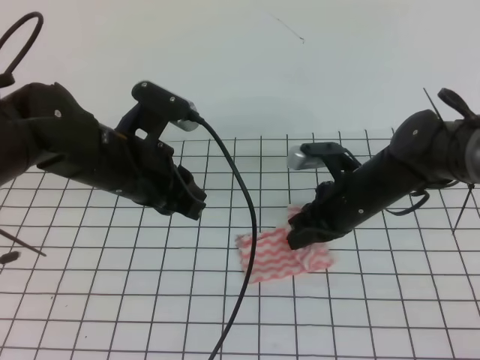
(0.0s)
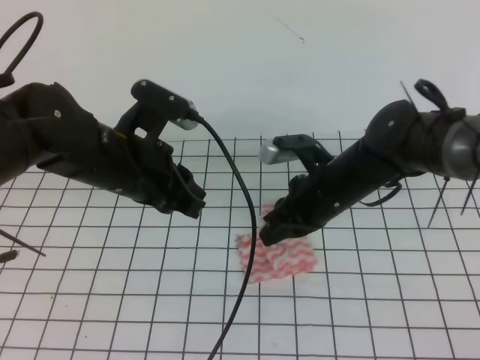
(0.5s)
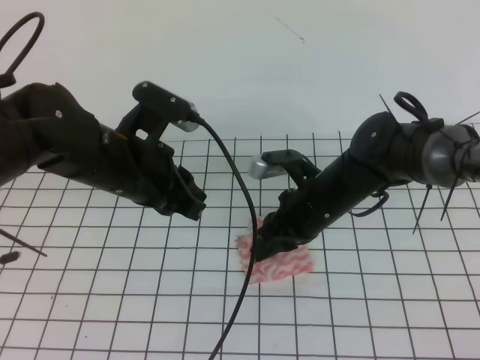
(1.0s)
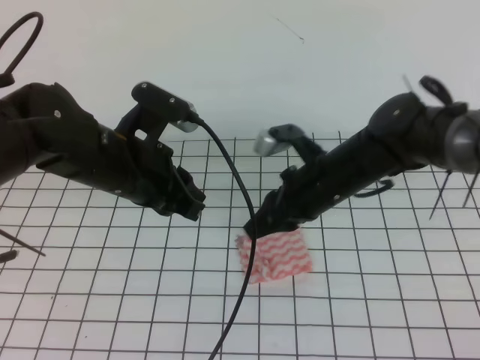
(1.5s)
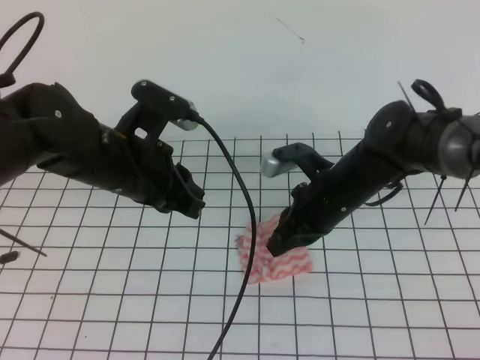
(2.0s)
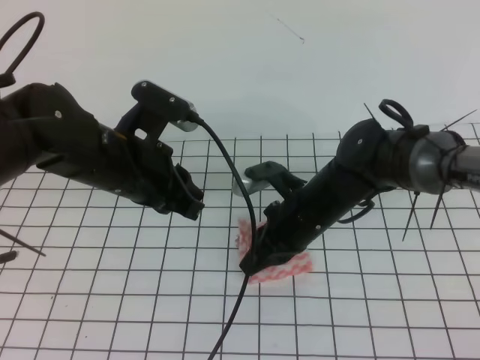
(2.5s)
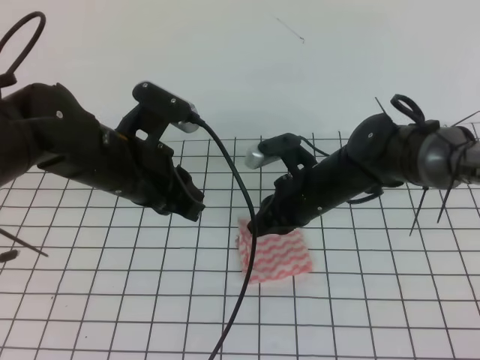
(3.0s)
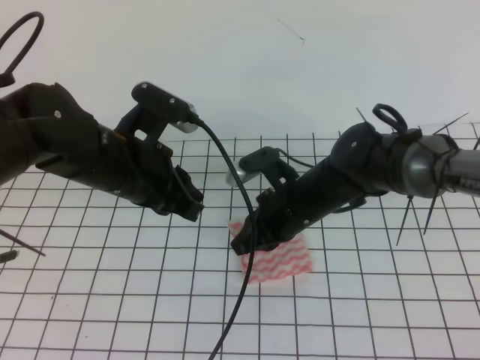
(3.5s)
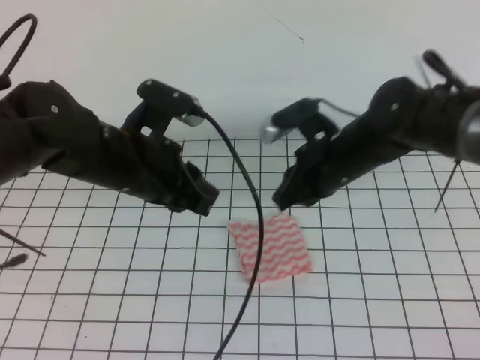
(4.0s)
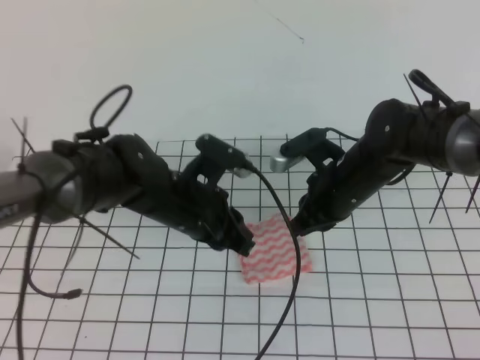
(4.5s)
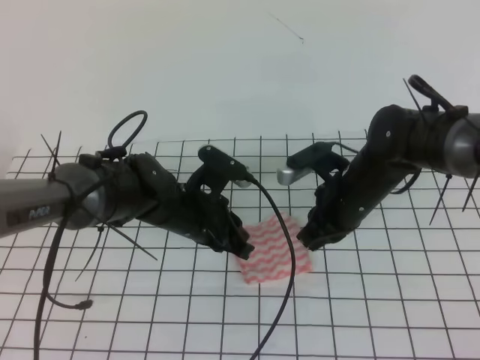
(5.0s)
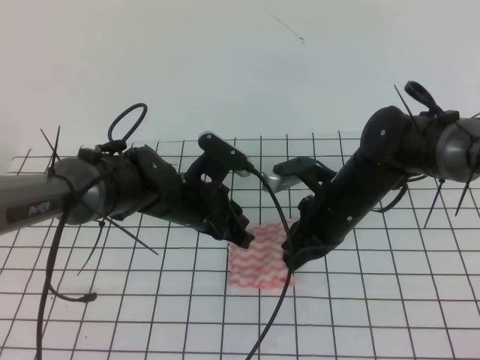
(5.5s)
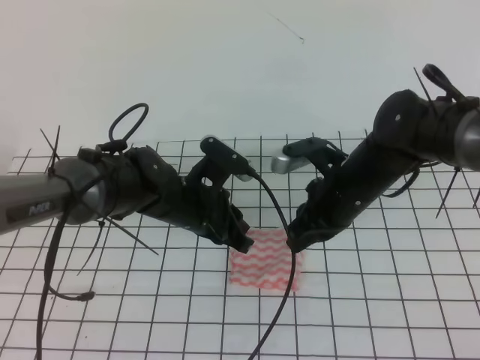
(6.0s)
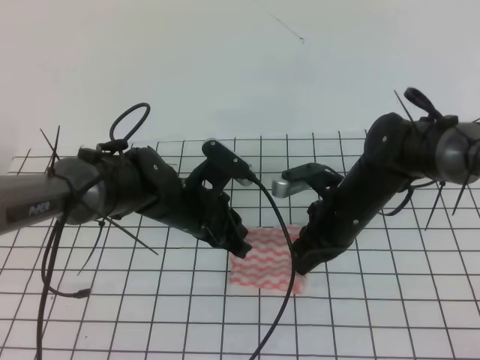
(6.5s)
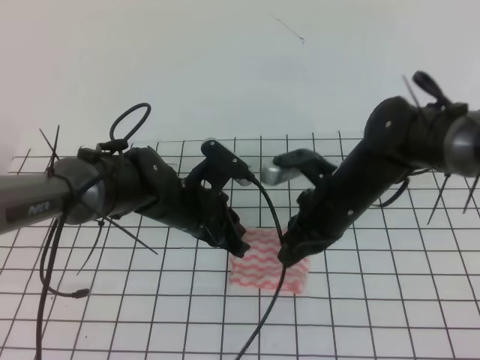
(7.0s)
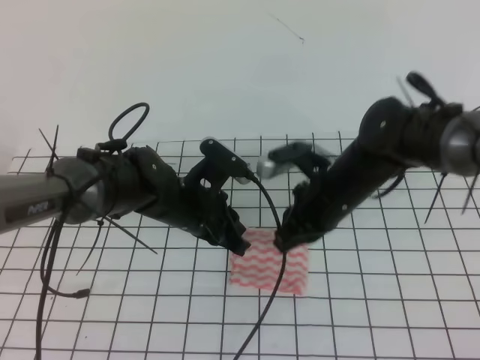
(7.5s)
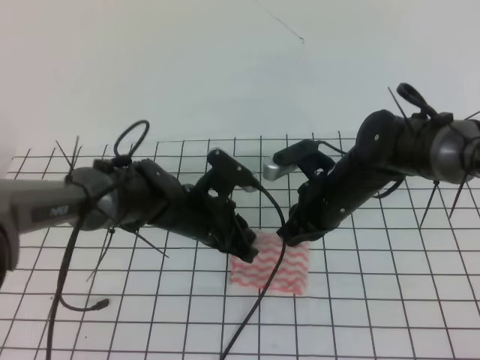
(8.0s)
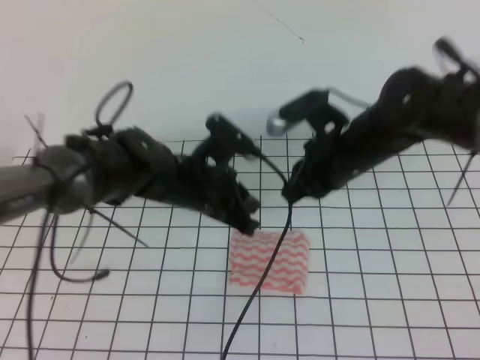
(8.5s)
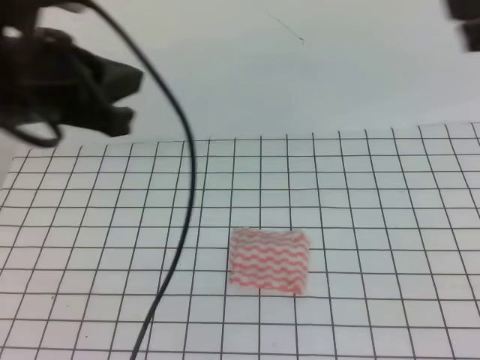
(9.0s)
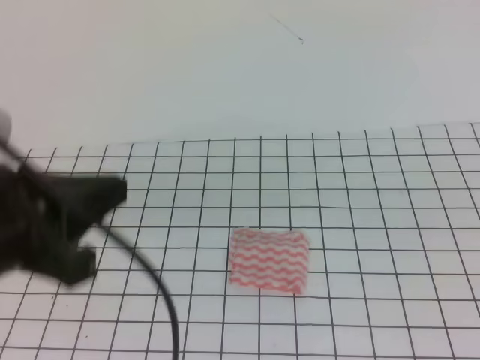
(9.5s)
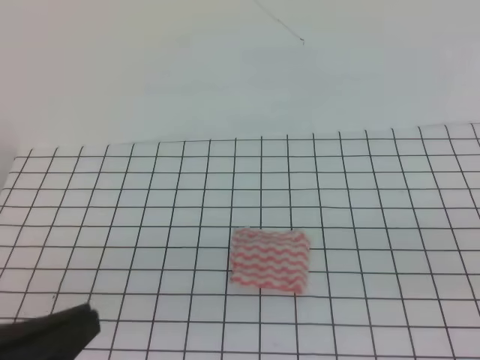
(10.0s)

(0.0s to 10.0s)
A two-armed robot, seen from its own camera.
0.0s - 2.0s: The right gripper opens, then closes once more.
2.0s - 4.0s: The grippers move only a little.
4.0s - 6.0s: The left gripper heads downward, covering some 10 cm.
6.0s - 8.0s: The grippers move only a little.
8.0s - 10.0s: The right gripper shifts about 35 cm backward, to the right and upward, while the left gripper travels backward, upward and to the left by about 35 cm.
